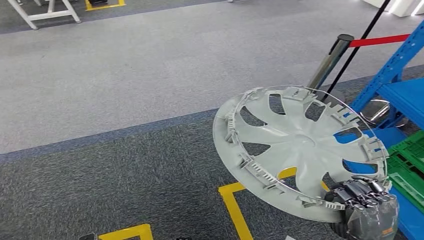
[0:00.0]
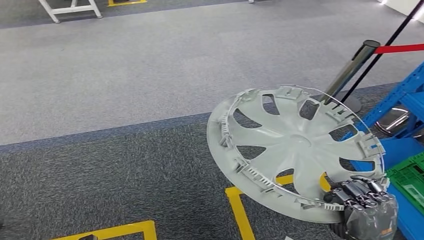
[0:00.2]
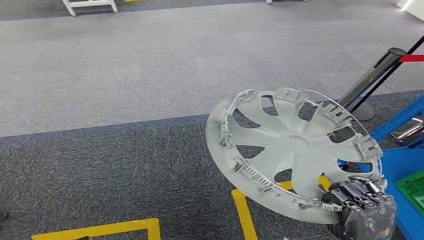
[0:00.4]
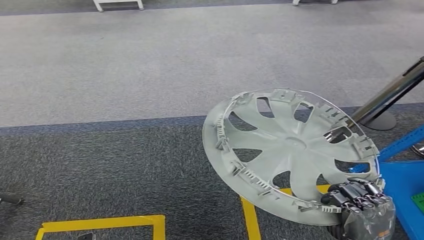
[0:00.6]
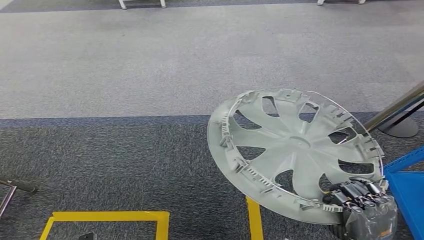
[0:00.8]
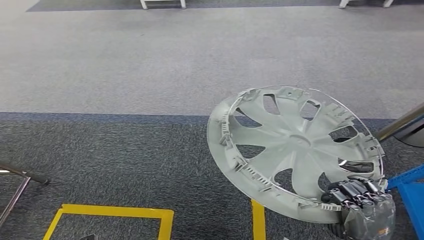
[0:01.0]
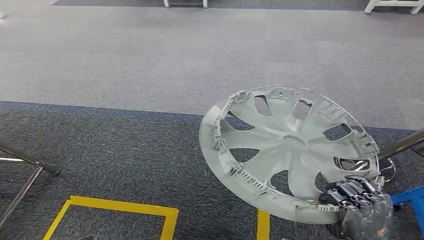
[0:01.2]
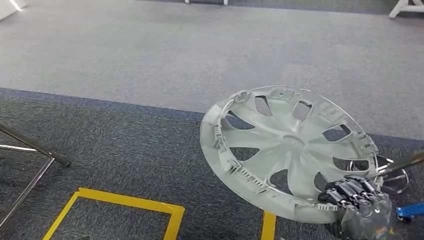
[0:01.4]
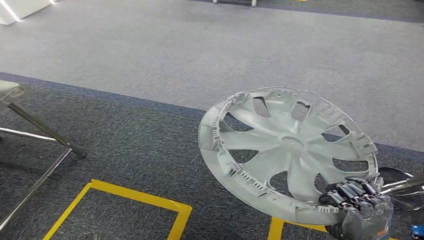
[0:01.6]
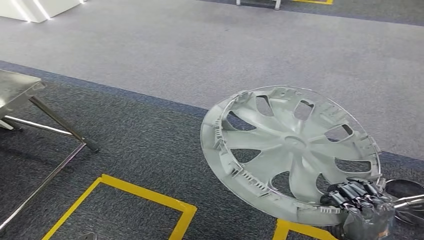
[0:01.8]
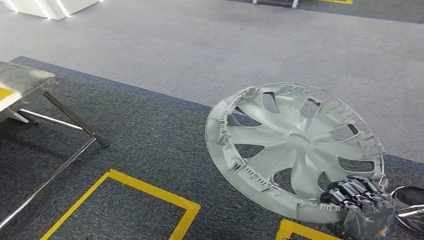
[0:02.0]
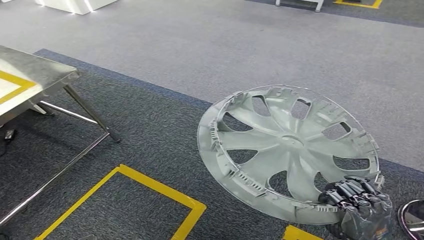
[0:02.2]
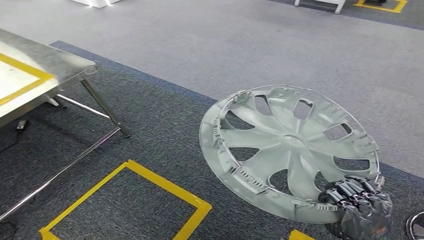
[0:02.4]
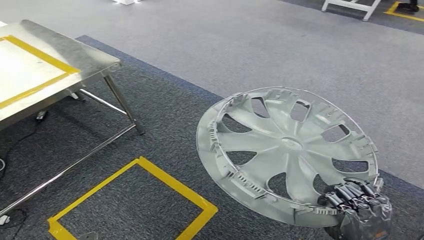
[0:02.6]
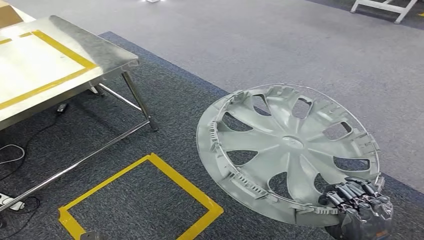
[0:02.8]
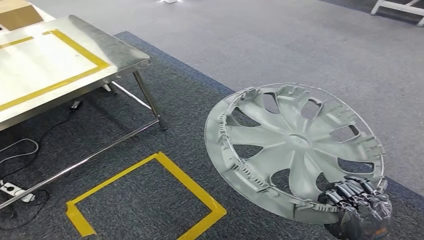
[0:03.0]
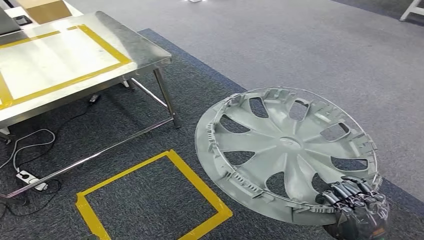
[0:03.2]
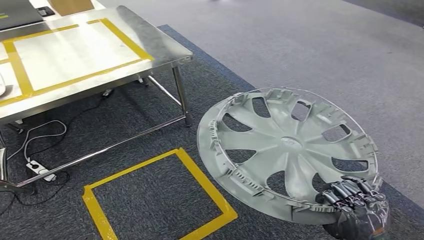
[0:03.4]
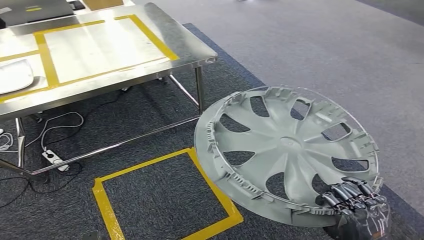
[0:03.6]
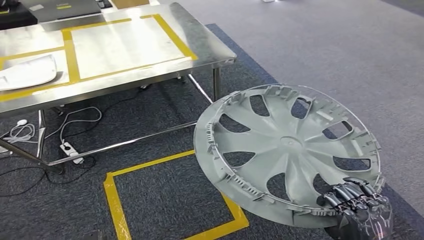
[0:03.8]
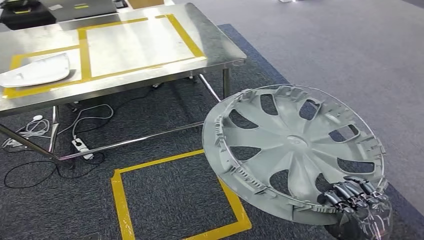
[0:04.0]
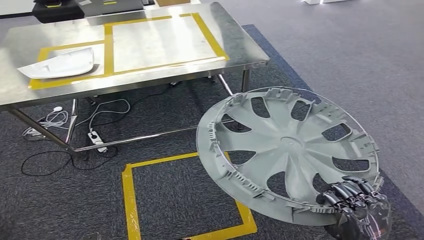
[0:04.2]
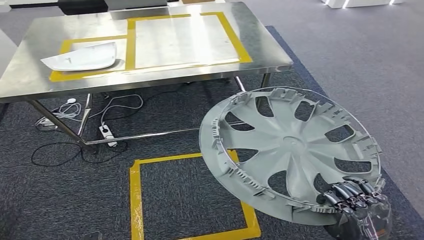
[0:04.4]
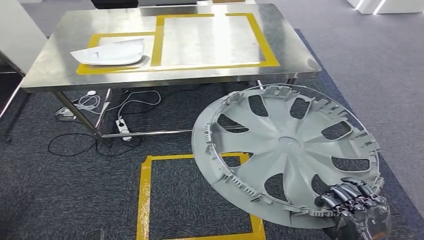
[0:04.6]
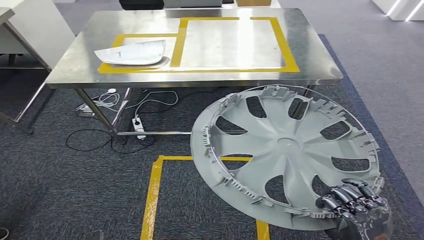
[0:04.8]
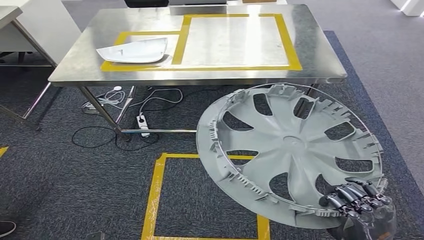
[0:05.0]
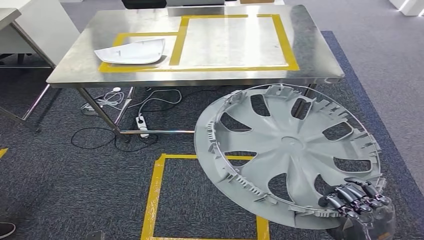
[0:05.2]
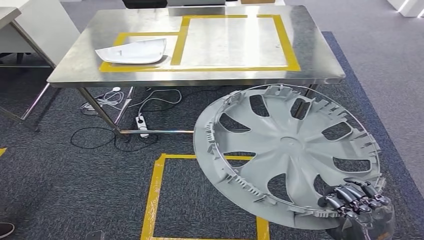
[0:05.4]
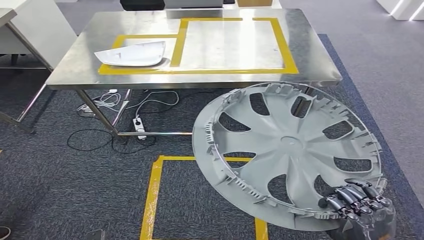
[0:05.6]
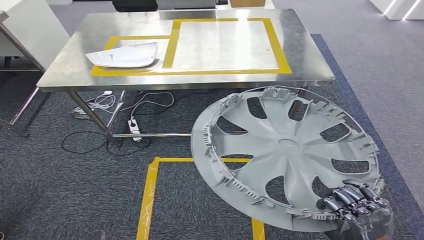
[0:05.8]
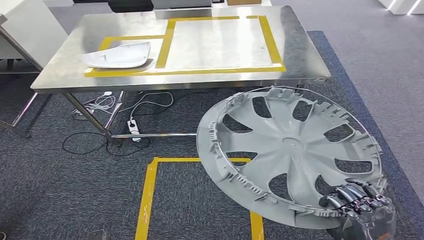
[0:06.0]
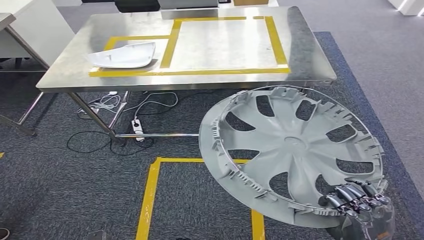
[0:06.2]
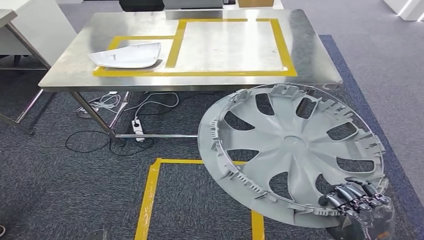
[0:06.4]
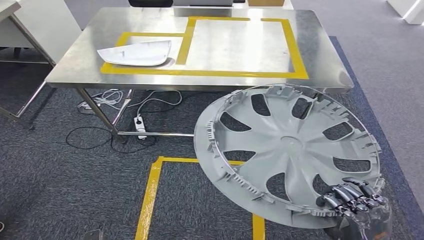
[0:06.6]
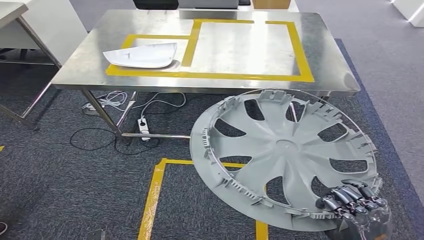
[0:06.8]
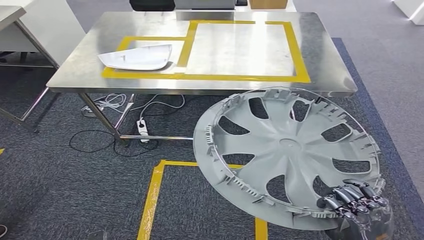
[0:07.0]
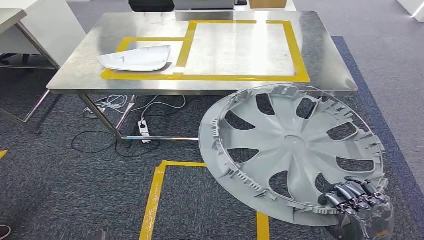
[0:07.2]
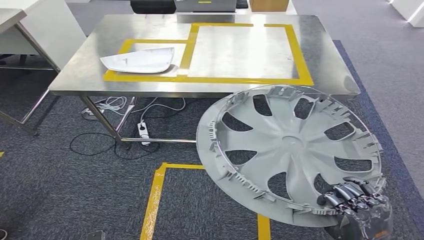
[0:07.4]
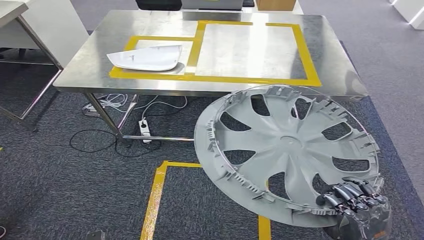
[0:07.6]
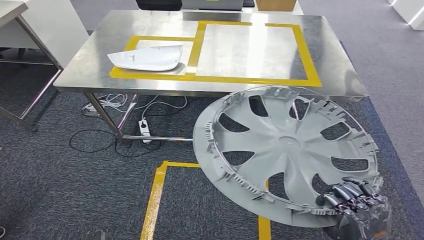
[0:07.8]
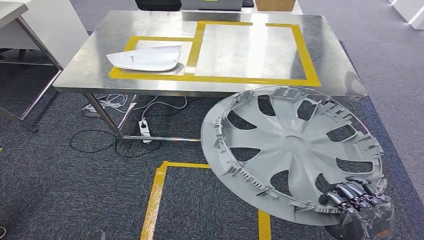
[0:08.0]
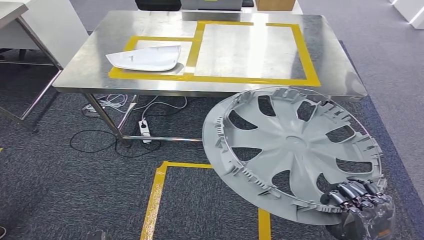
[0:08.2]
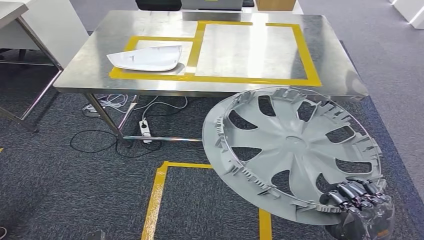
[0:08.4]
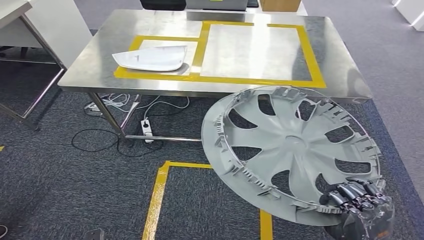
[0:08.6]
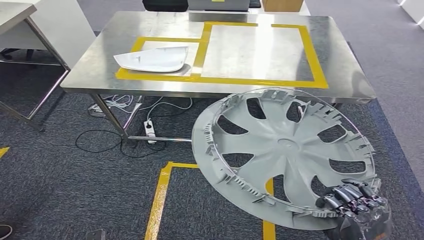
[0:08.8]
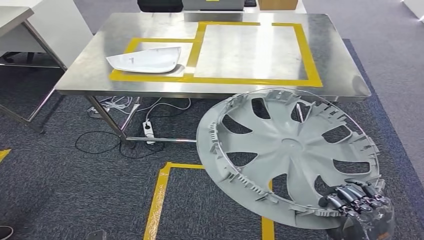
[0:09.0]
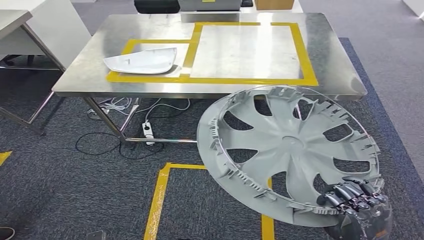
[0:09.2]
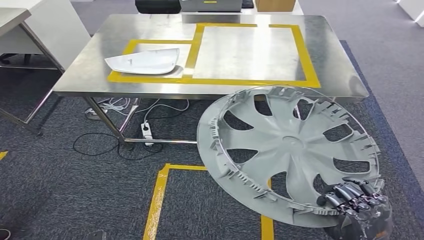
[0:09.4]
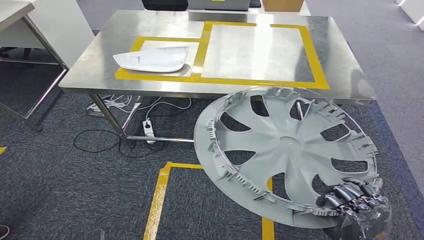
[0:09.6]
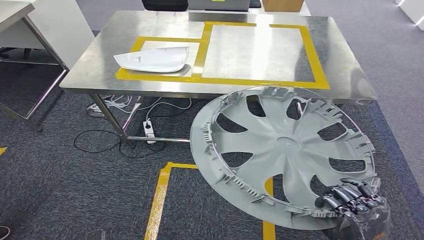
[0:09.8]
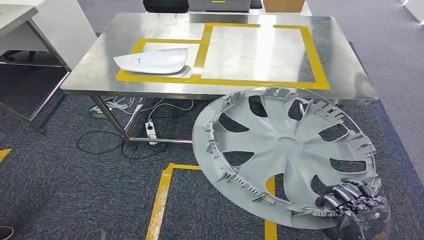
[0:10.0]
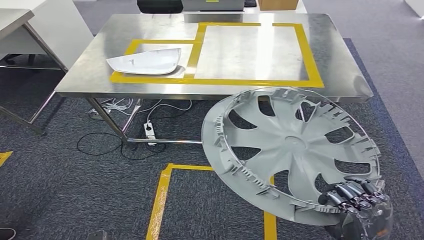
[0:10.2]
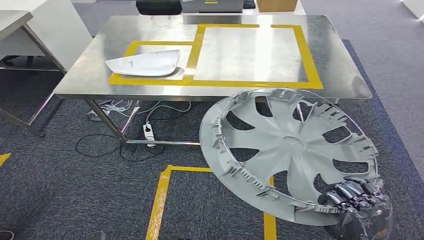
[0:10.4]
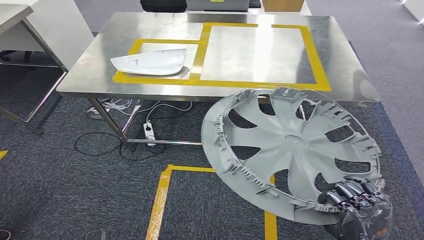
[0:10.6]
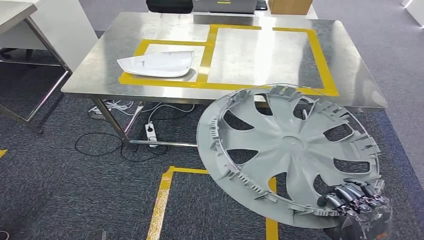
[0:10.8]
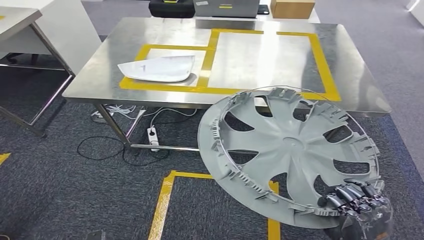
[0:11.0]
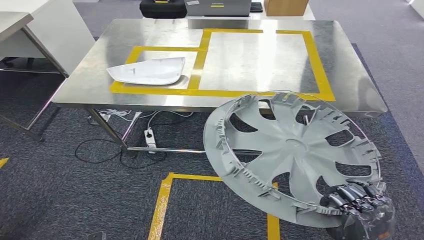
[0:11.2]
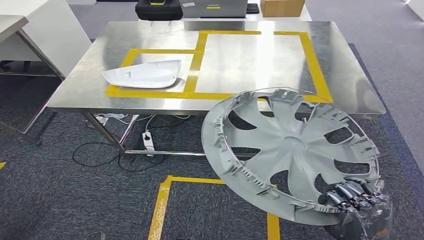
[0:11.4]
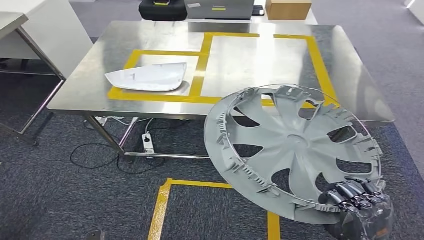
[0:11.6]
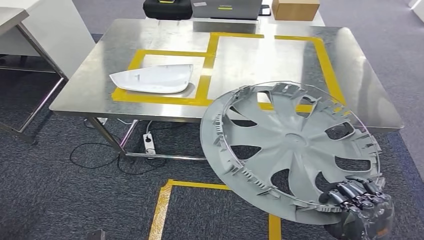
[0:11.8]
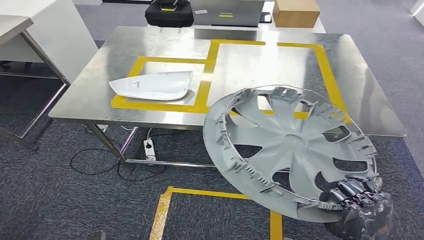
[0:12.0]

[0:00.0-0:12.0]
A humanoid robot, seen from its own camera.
0:07.6 to 0:10.4: Both hands stay put.

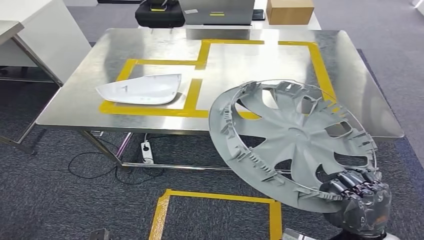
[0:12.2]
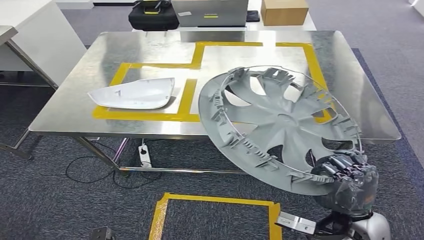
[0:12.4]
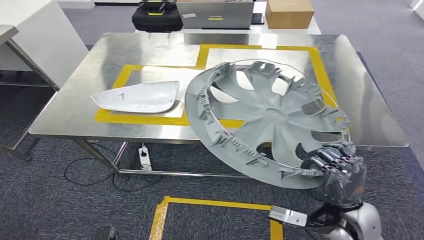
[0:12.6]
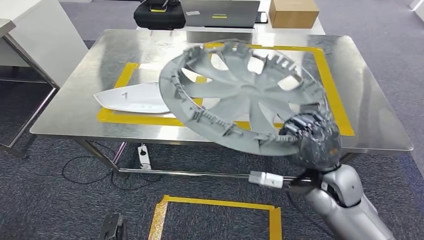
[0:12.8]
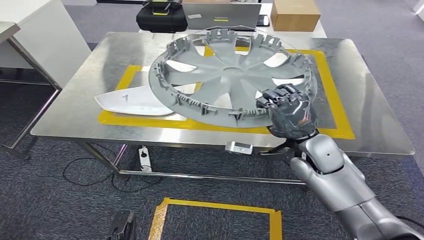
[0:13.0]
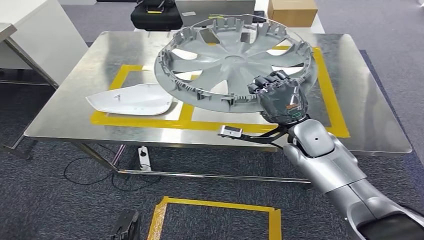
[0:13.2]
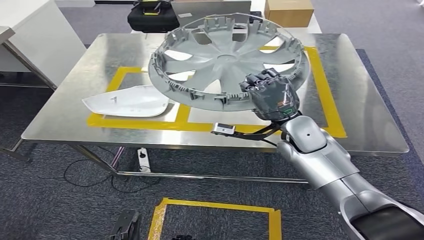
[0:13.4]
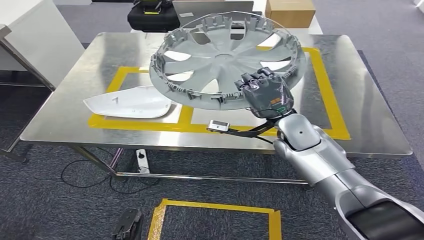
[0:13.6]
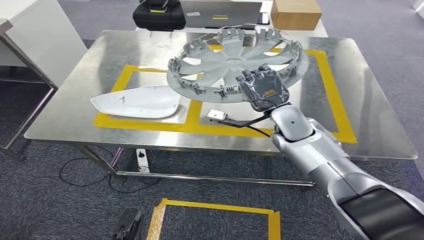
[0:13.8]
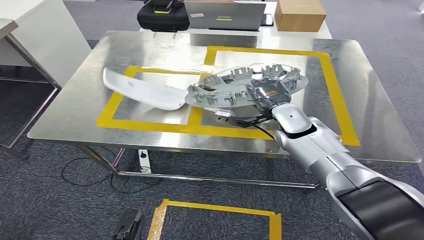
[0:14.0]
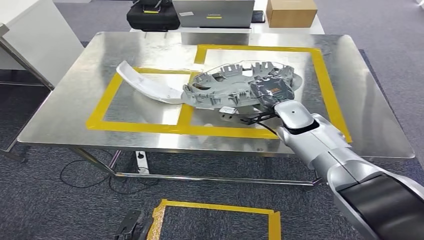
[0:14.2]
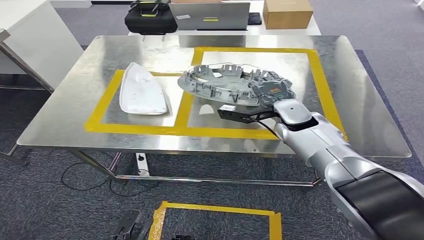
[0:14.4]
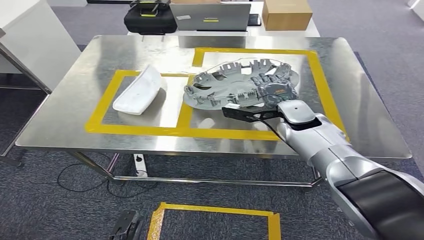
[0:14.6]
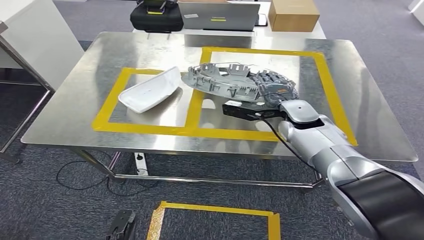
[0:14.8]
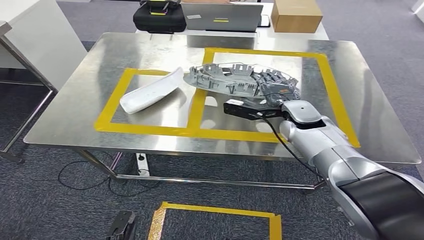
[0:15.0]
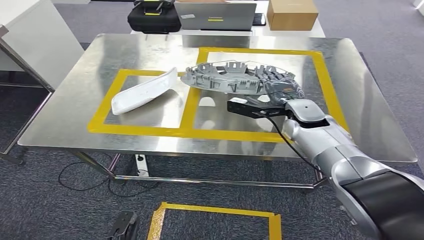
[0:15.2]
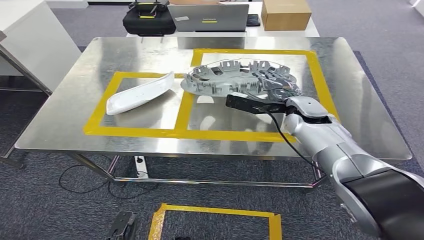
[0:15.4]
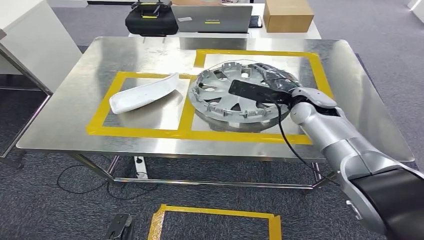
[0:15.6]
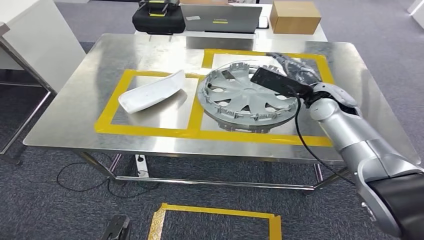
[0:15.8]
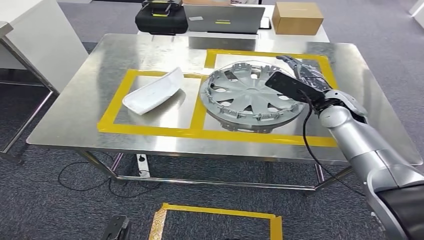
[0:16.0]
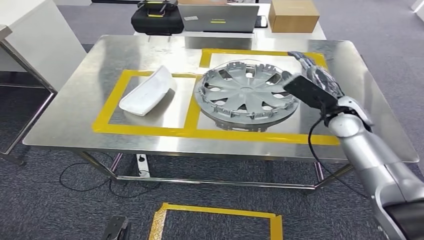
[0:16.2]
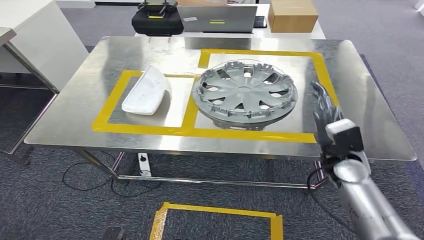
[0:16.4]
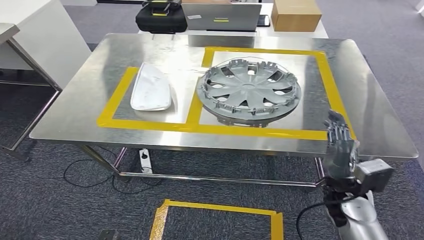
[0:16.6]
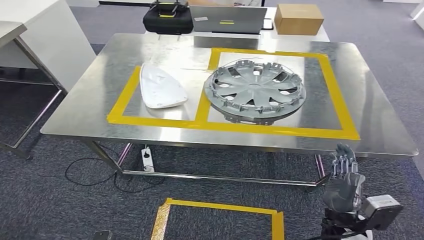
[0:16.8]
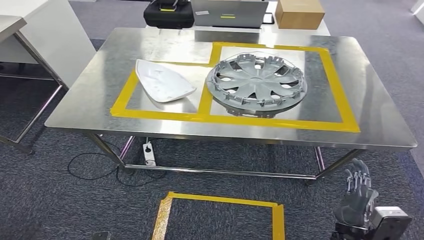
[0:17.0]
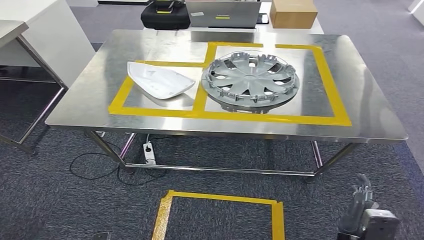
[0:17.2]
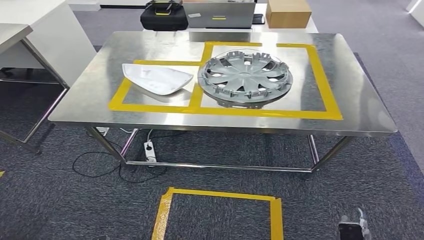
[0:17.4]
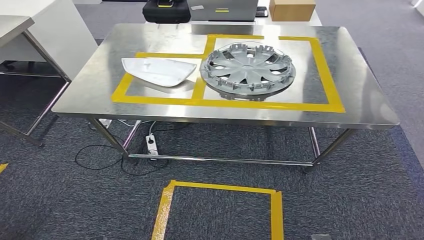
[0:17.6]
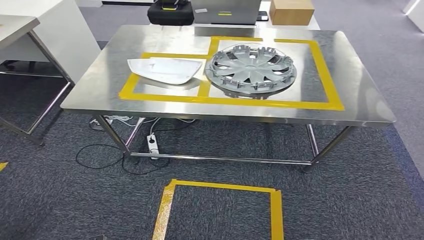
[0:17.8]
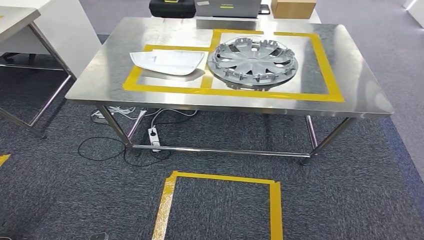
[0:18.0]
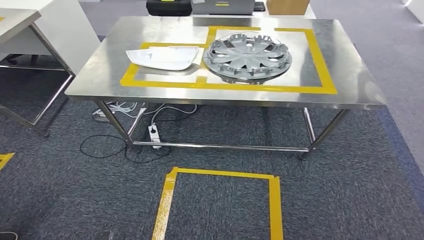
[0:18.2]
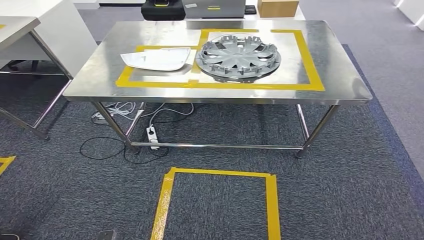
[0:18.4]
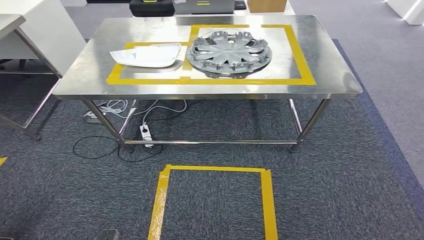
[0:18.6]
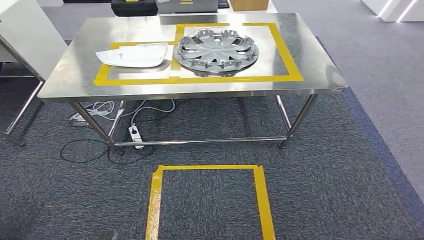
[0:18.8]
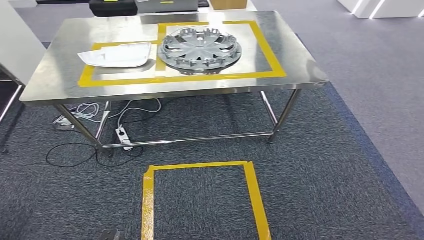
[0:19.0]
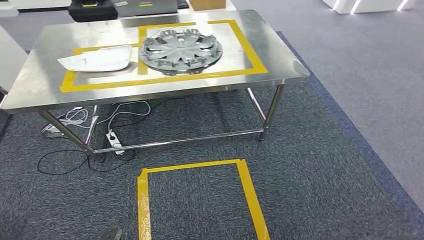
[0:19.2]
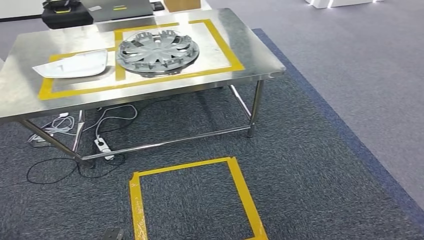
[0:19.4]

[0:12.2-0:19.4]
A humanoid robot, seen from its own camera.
Step, 0:13.4 to 0:16.2: Insert the small component into the corresponding slot on the workbench.
